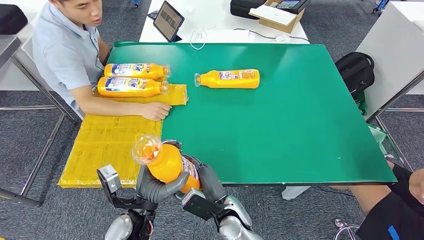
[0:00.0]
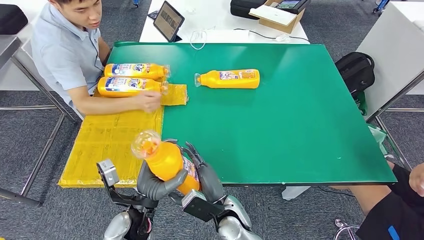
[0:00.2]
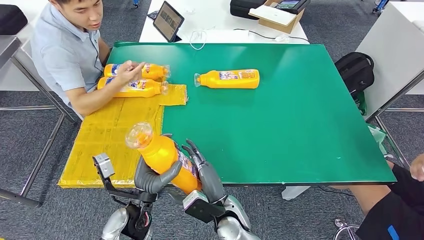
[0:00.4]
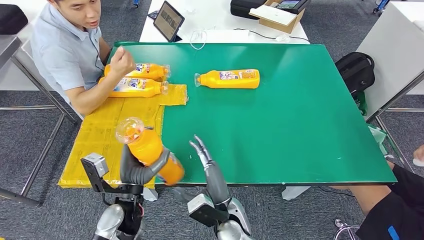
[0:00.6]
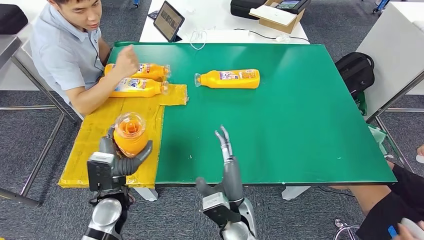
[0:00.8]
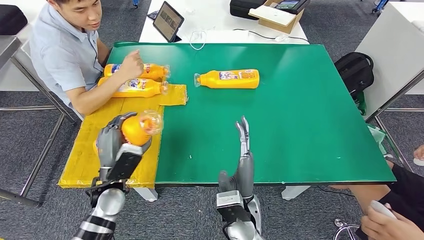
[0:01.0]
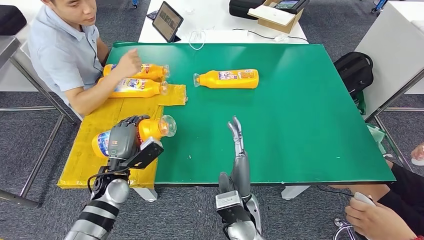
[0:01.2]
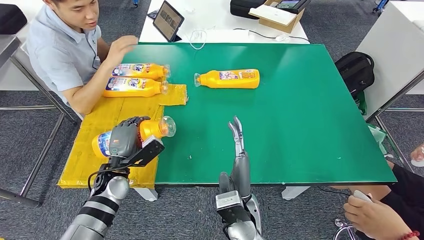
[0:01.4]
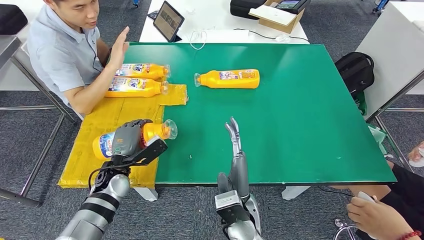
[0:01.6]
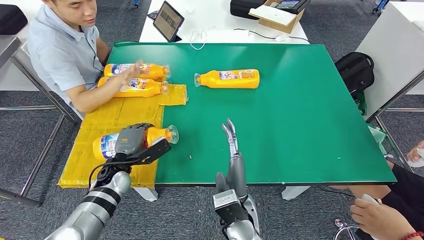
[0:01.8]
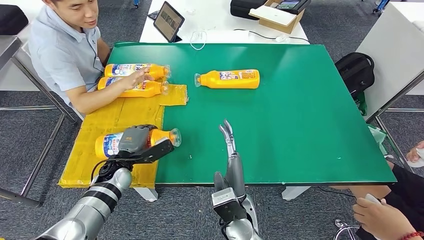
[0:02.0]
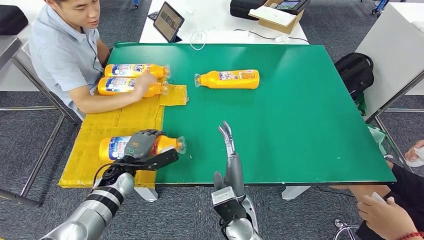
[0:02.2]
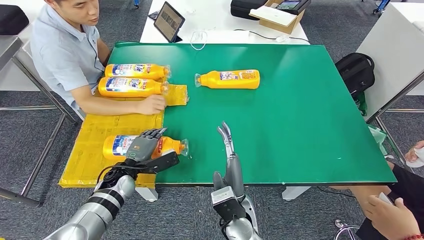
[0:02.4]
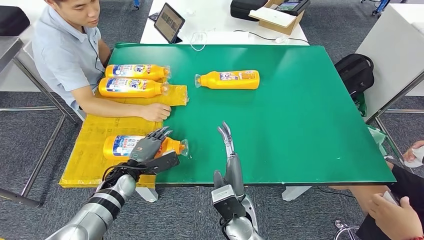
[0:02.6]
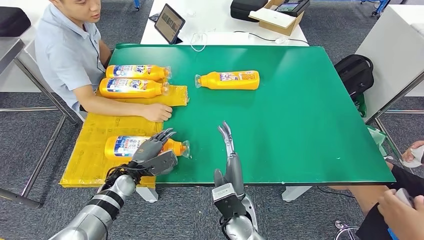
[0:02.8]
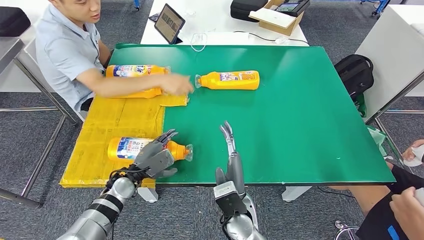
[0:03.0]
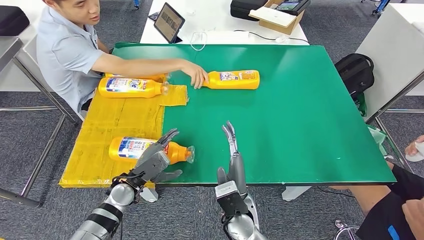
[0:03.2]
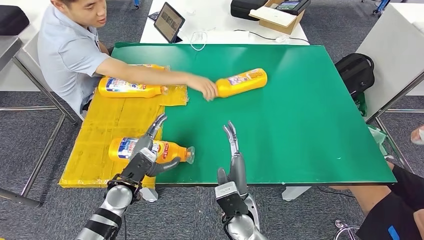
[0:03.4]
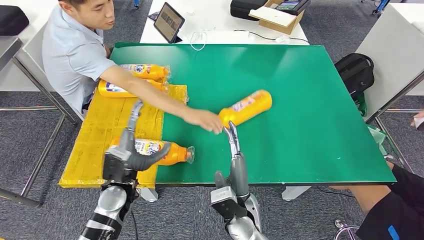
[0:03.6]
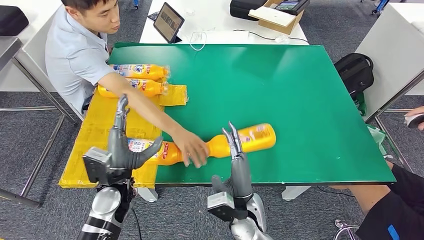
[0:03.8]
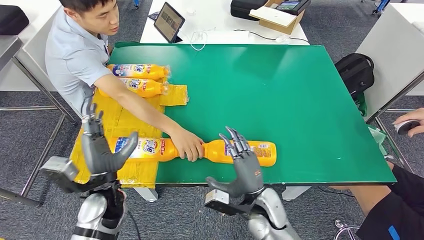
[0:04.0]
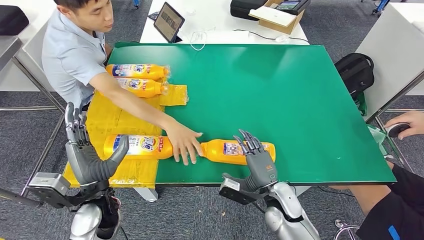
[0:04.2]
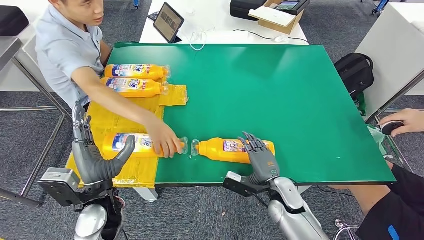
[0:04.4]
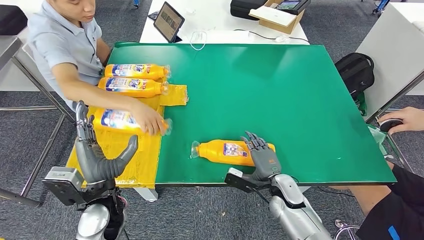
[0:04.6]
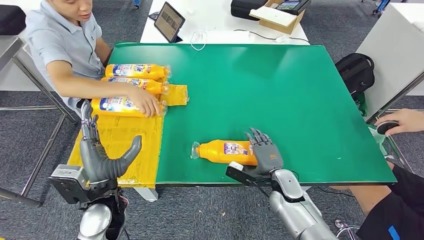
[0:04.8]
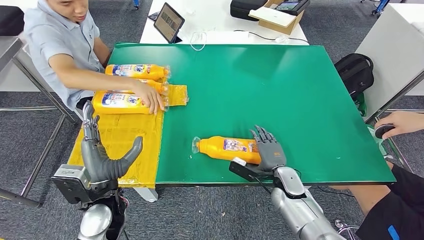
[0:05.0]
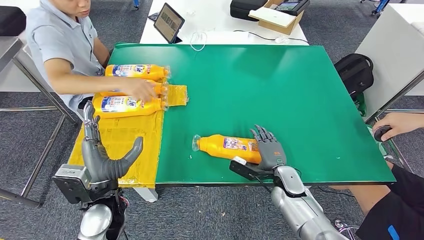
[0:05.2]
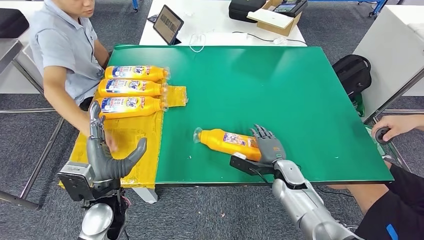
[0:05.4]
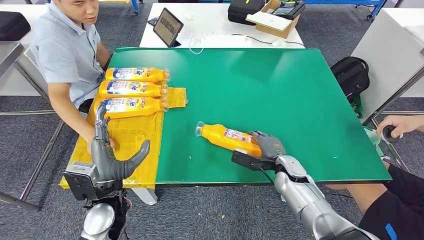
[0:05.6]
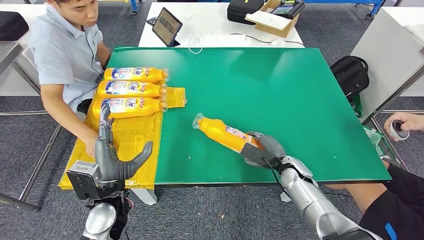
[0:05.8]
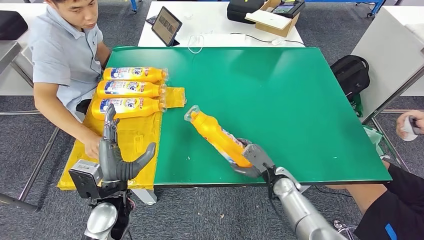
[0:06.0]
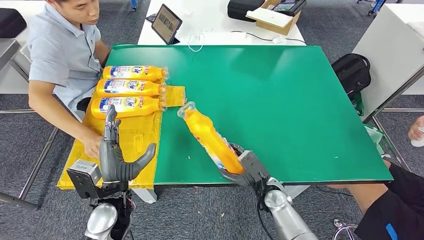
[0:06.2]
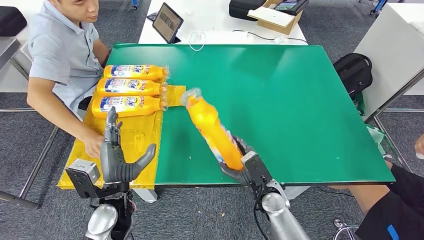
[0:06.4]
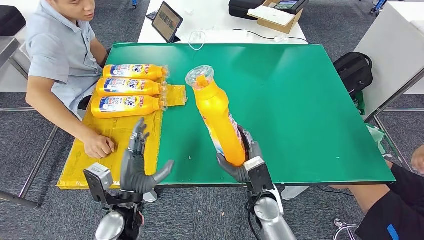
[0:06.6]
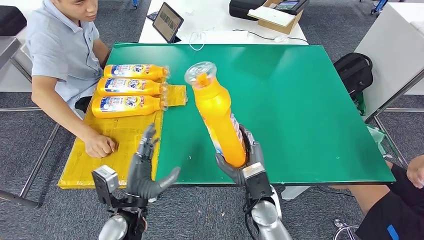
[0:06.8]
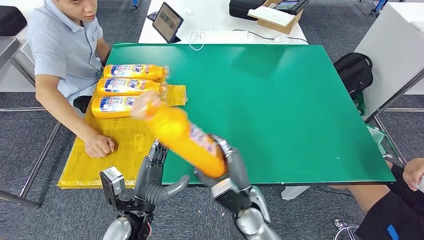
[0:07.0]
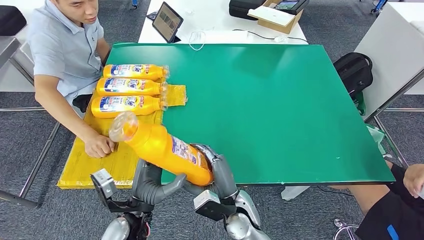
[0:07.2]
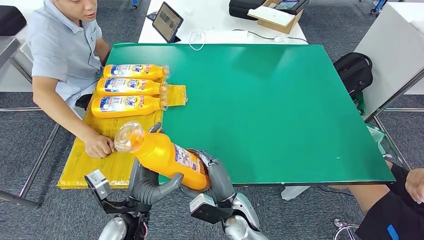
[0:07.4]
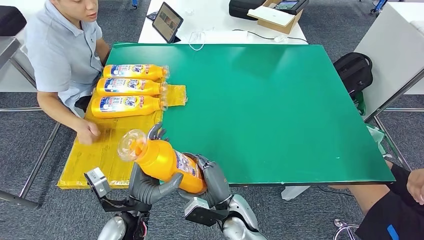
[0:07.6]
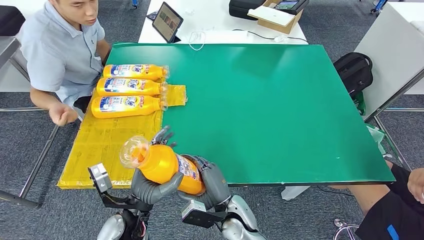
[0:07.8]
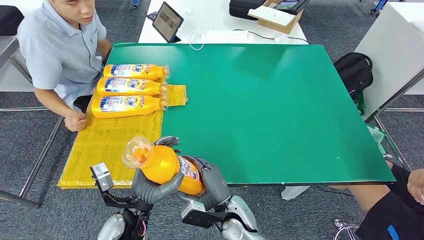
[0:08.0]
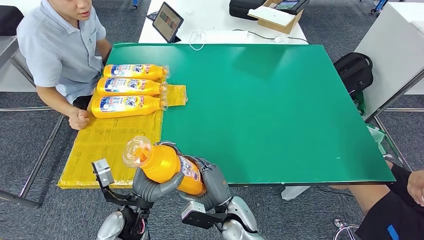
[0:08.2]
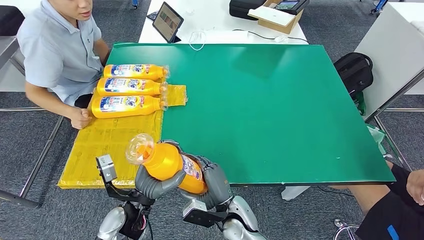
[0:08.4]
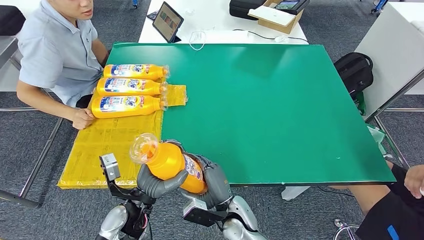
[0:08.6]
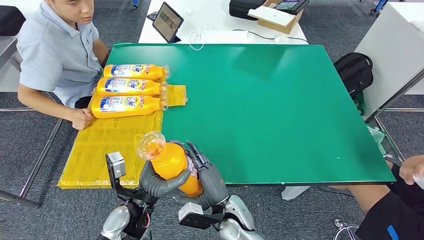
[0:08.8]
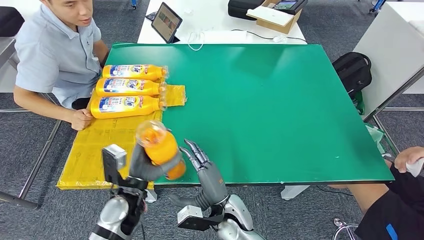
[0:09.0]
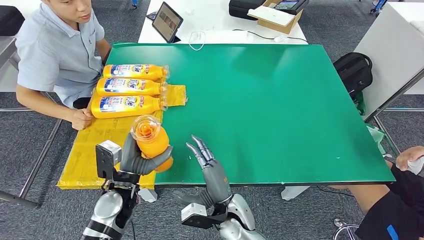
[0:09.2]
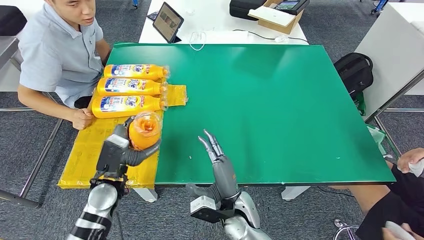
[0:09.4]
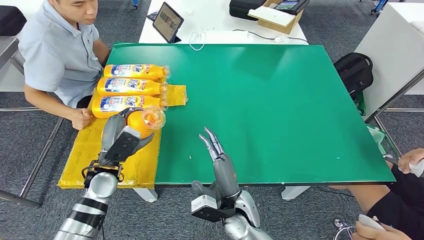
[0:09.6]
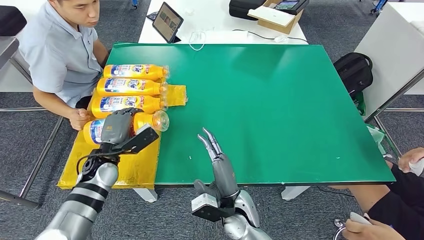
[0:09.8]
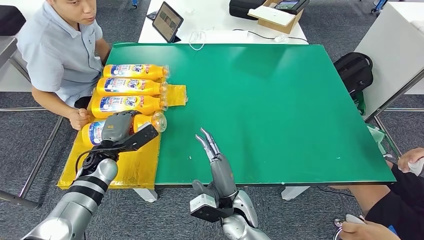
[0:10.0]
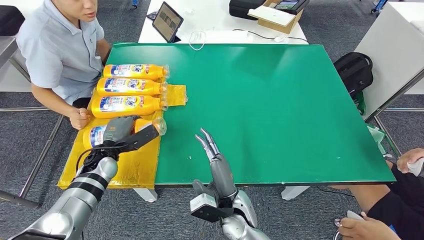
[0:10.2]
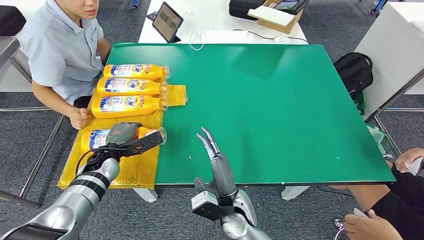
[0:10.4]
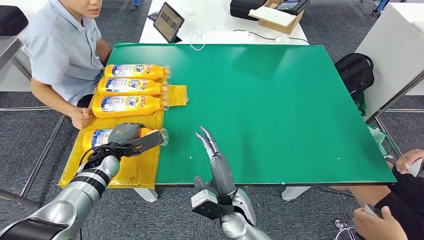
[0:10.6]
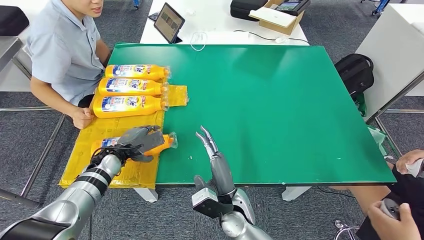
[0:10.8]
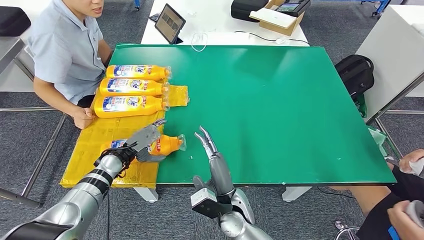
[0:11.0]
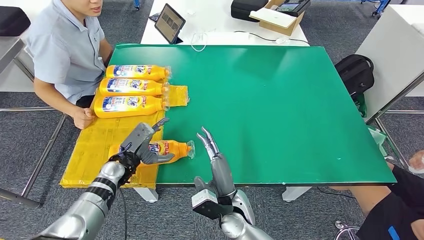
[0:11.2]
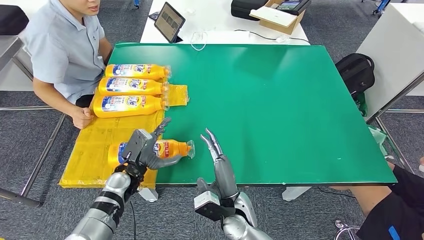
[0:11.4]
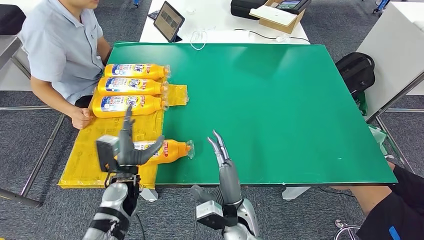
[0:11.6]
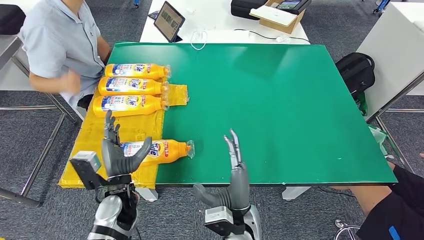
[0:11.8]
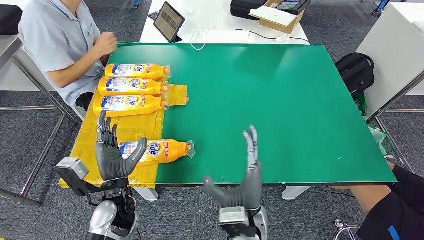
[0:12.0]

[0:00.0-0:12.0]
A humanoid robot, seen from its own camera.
Step, 0:00.6 to 0:04.2: Flip the fast-moving consumer goods bottle to the front side.
Step, 0:04.8 to 0:08.6: Pick up the fast-moving consumer goods bottle from the table.
0:00.0 to 0:01.6: The left hand goes roughly 15 cm forward and to the left. The right hand travels upward by approximately 5 cm.
0:07.6 to 0:09.0: The left hand changes place by some 5 cm.

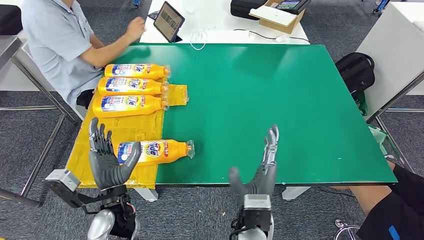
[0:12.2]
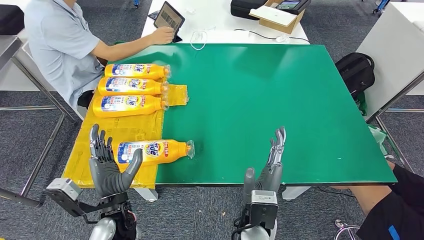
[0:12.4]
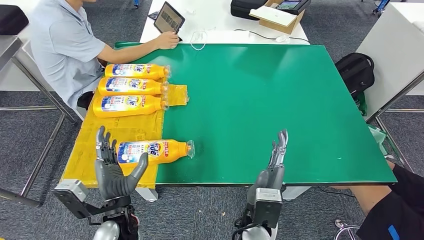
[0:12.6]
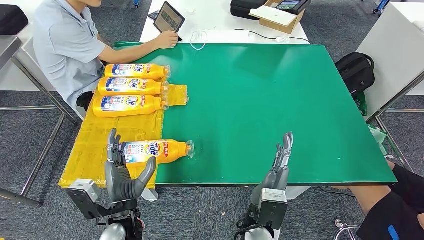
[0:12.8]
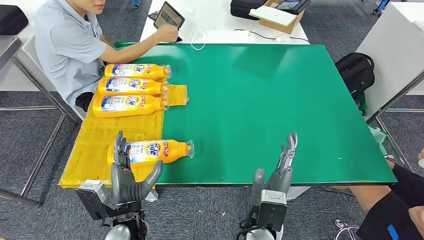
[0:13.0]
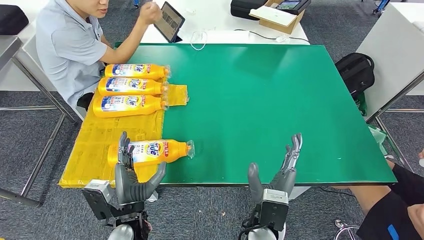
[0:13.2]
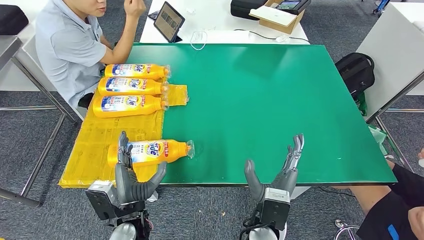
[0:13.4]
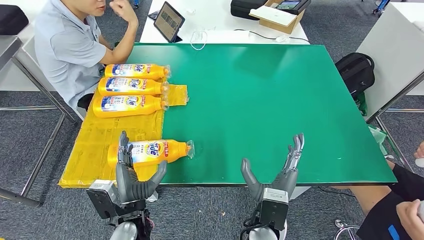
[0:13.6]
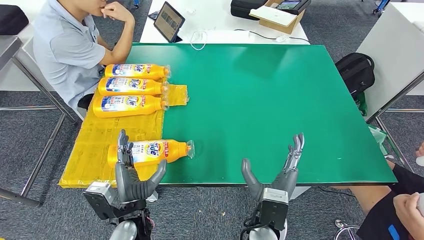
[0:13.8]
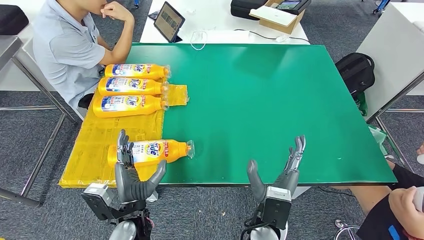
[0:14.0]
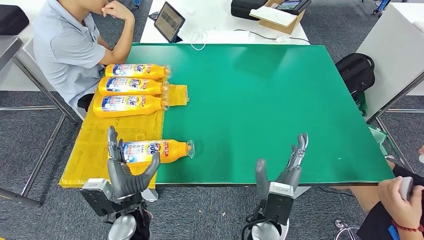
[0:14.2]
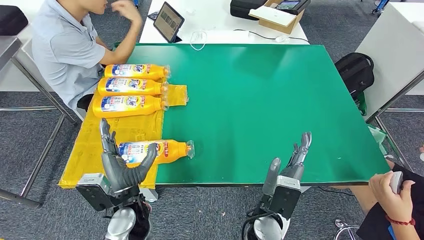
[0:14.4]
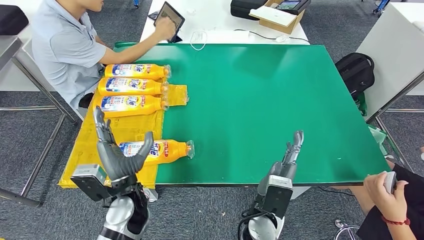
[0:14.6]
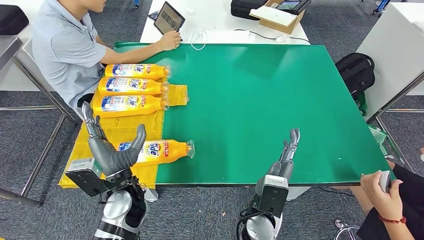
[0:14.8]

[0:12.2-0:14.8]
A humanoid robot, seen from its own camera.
Step, 0:12.2 to 0:14.8: Flip the fast-moving consumer goods bottle to the front side.
0:12.2 to 0:13.4: The left hand changes place by some 5 cm.
0:13.4 to 0:14.8: The left hand goes roughly 10 cm forward and upward.
